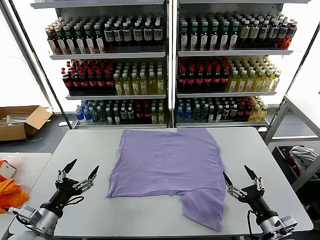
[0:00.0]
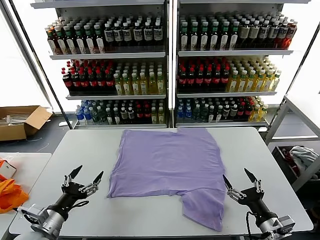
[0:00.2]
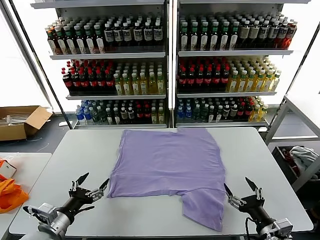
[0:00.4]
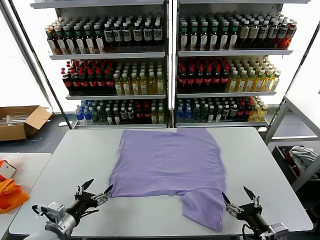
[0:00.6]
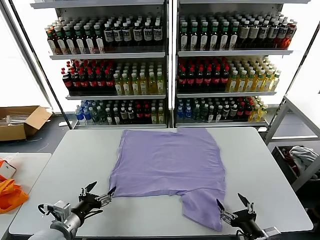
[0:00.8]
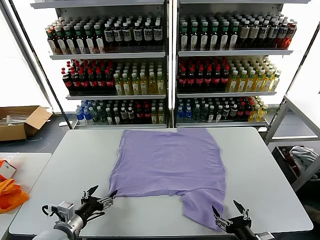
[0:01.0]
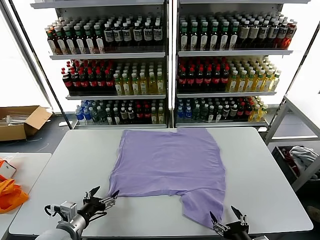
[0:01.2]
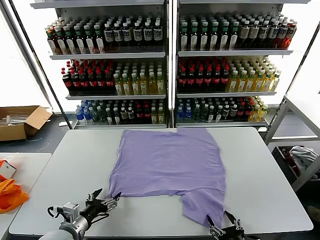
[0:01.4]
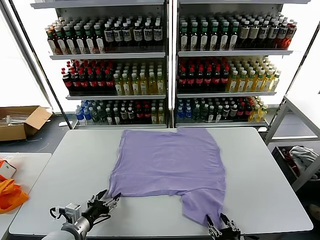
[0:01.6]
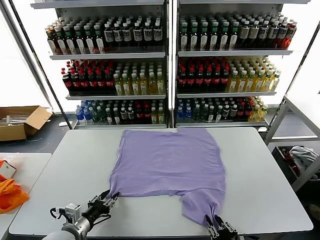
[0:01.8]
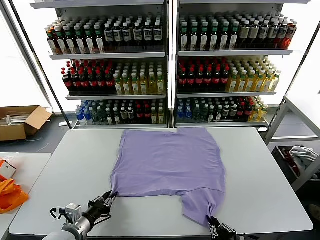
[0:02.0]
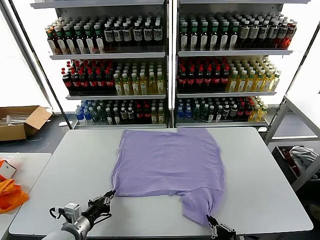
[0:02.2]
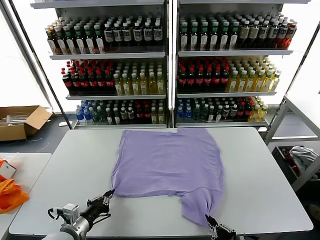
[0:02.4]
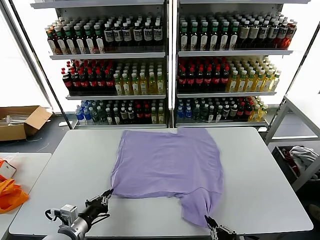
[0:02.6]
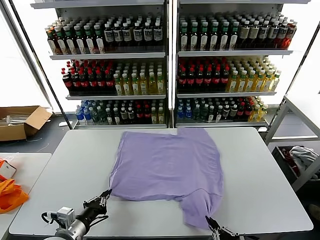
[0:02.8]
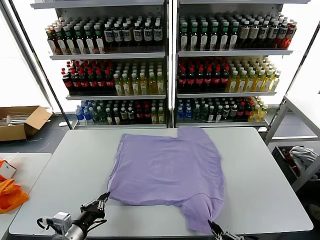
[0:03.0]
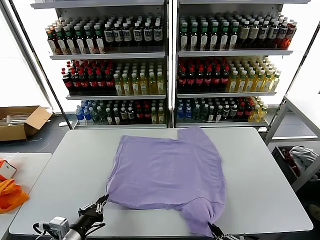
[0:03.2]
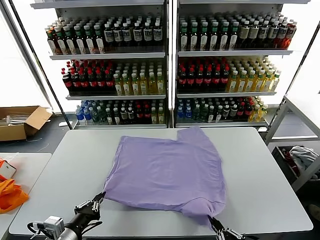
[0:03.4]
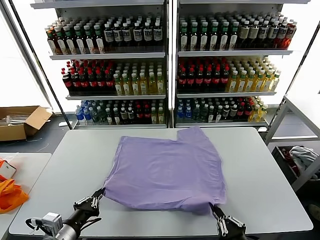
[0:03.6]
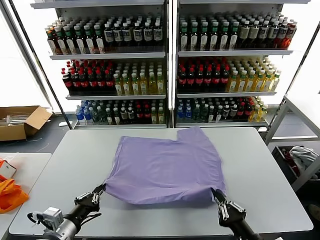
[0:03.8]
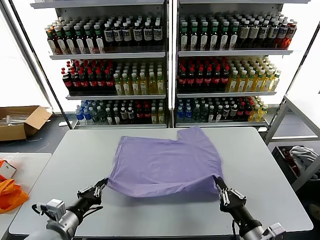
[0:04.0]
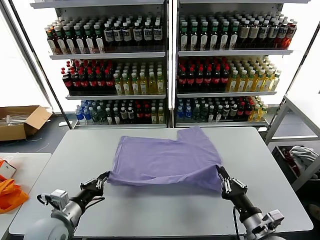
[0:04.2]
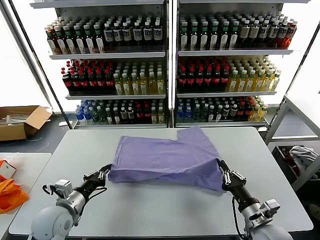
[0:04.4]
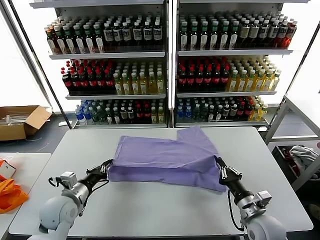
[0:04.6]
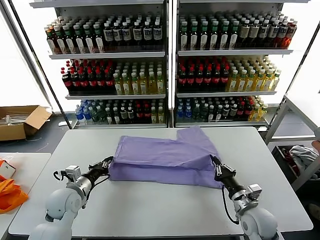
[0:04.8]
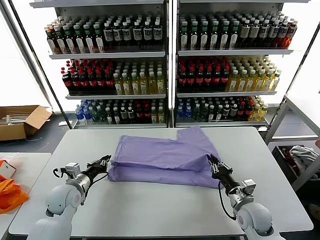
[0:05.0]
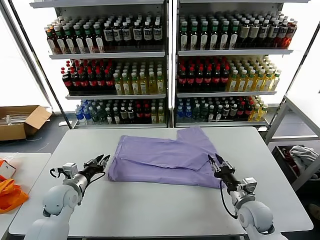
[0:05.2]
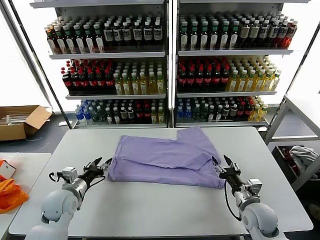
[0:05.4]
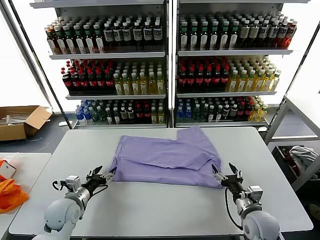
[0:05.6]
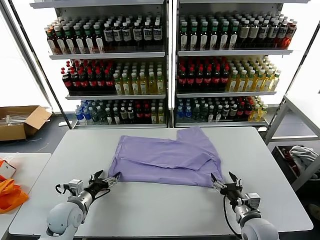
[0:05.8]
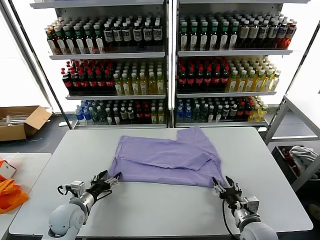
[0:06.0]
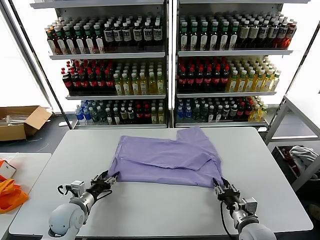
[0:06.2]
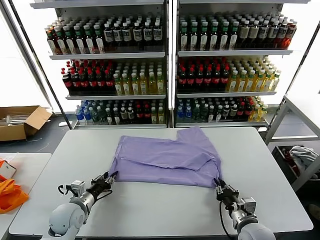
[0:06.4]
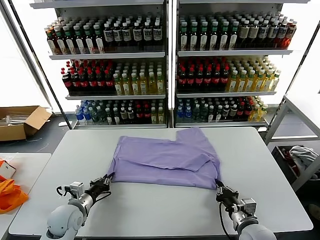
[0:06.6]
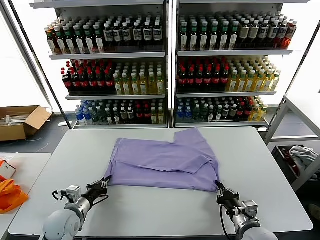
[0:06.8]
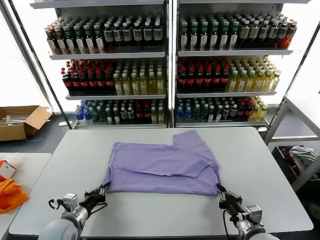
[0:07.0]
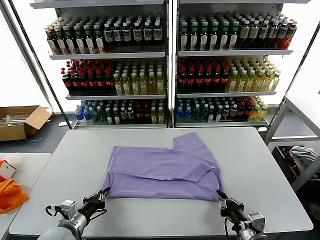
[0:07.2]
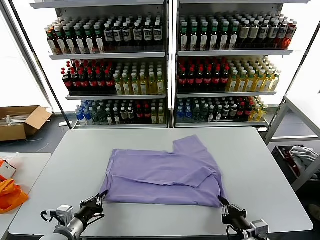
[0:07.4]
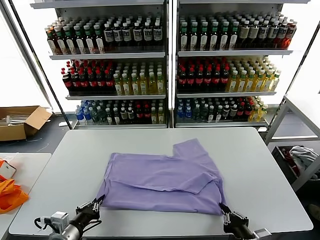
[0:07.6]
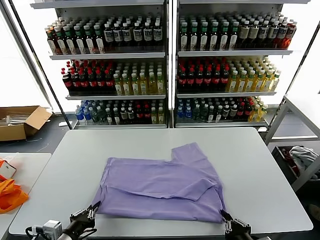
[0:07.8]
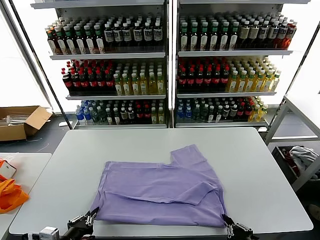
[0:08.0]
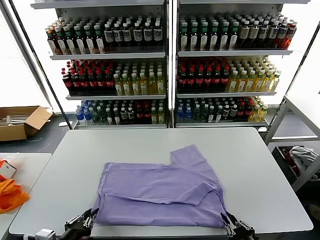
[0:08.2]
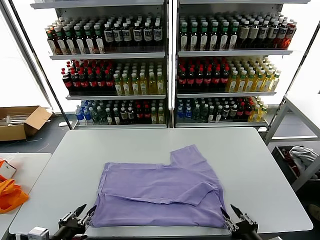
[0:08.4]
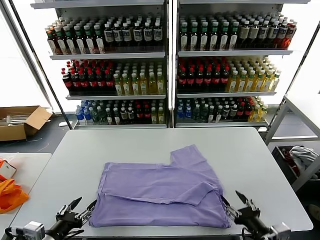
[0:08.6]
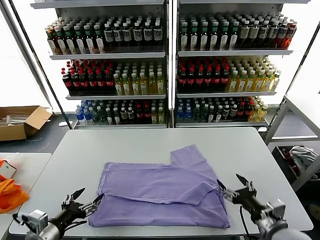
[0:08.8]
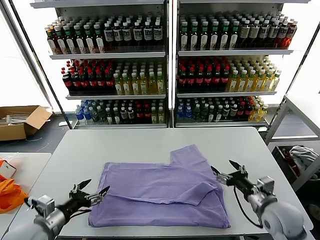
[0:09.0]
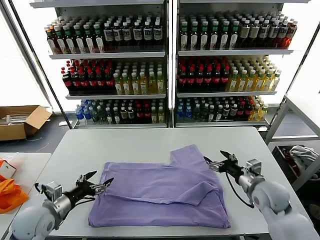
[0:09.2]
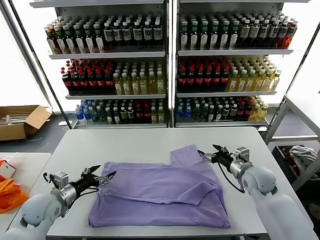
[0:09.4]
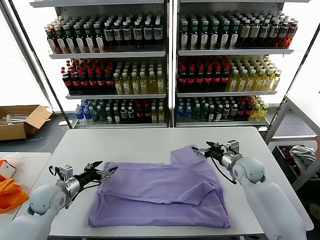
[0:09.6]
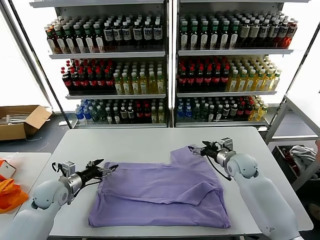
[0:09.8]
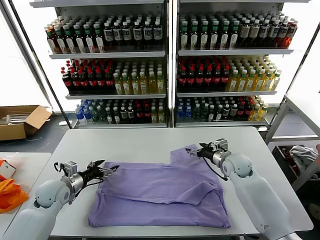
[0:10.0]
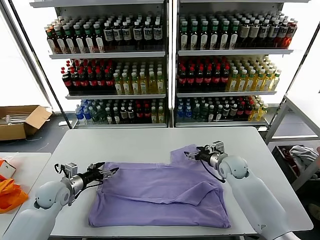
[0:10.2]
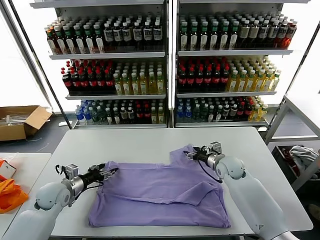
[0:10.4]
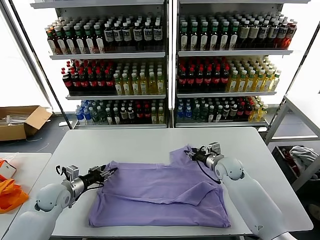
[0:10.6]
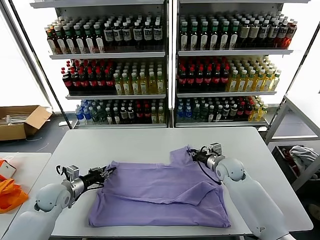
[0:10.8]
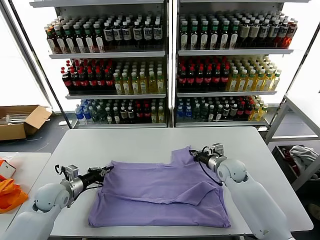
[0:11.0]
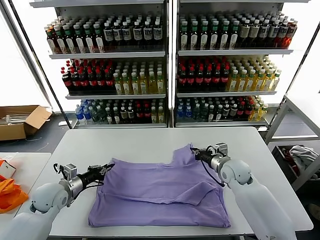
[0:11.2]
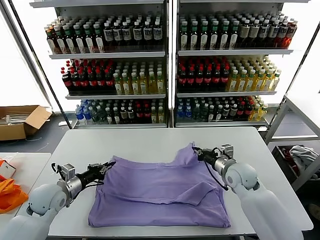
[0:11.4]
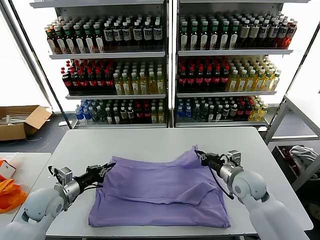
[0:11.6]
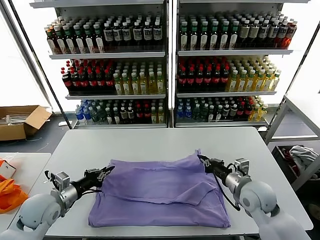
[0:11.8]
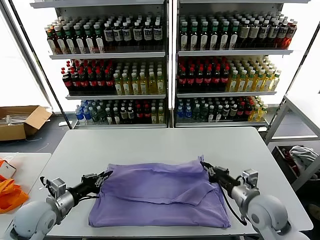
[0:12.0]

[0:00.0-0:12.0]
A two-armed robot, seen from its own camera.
Task of the whole recording: fold and organize the clothes.
Step, 0.0 to 2.6 s: use both grippers simultaneously to clamp the lower edge of the clothing fabric.
Step, 2.8 to 5.2 s: use both grippers to drag the lower edge of the fabric forward and fold it over the upper edge.
Step, 5.4 to 8.4 s: Drag the clothes downward with both gripper.
Step, 8.6 to 11.0 s: use both grippers simultaneously to clamp the upper edge of the clothing fabric.
1.6 to 3.0 s: The left gripper shifts by about 5 cm, and closes its fingers. The right gripper moves backward, some 5 cm, and closes.
3.0 to 4.4 s: The right gripper heads forward, covering some 20 cm. The left gripper moves forward, approximately 10 cm.
4.4 to 6.0 s: The left gripper heads downward, covering about 5 cm, and opens its fingers. The right gripper opens.
6.0 to 7.6 s: The two grippers go some 10 cm backward. The left gripper closes up. Meanwhile the right gripper closes.
7.6 to 9.0 s: The right gripper travels forward by approximately 20 cm, and opens up; the left gripper heads to the left, covering about 5 cm, moves about 5 cm backward and comes back, and opens.
9.0 to 10.4 s: The right gripper heads forward and to the left, covering about 20 cm, and closes; the left gripper is displaced forward by about 15 cm.
10.4 to 12.0 s: The right gripper shifts approximately 20 cm backward, and closes. Meanwhile the left gripper is displaced backward and upward by about 10 cm, and closes its fingers.

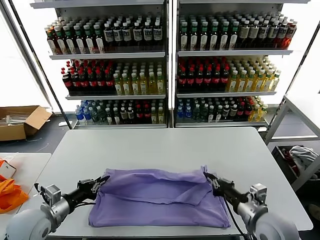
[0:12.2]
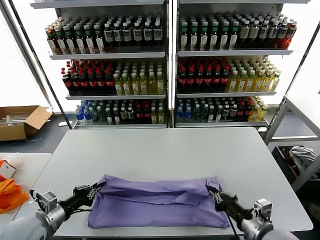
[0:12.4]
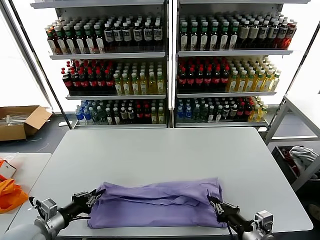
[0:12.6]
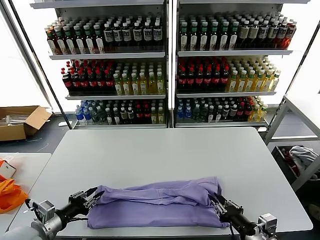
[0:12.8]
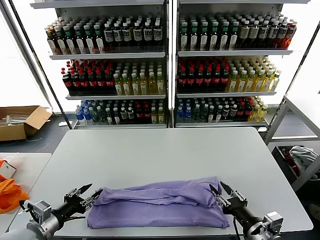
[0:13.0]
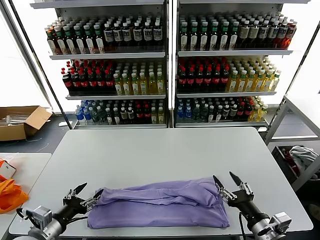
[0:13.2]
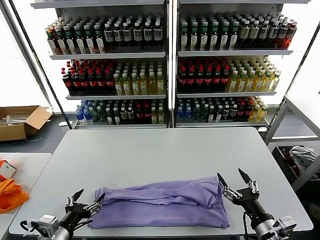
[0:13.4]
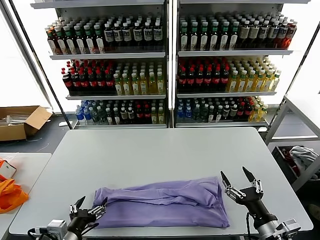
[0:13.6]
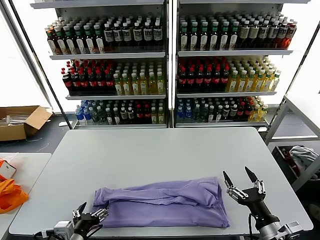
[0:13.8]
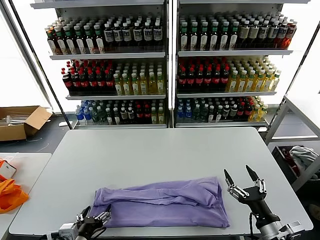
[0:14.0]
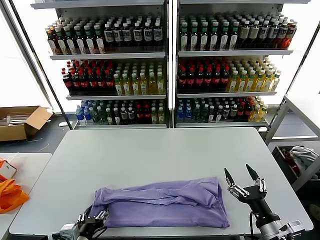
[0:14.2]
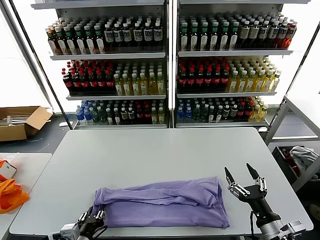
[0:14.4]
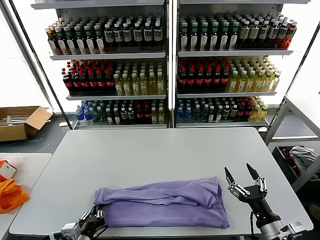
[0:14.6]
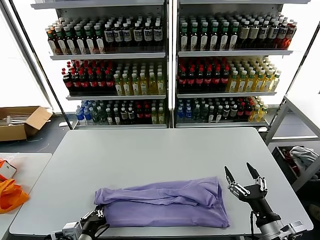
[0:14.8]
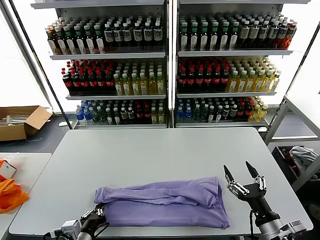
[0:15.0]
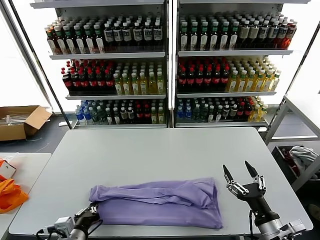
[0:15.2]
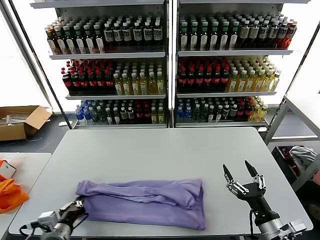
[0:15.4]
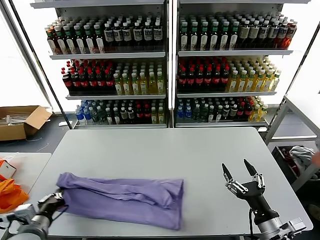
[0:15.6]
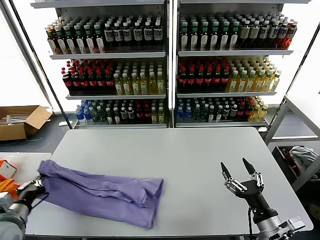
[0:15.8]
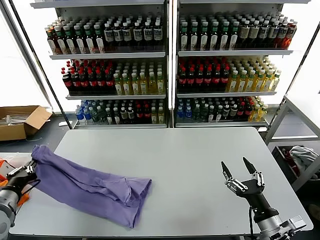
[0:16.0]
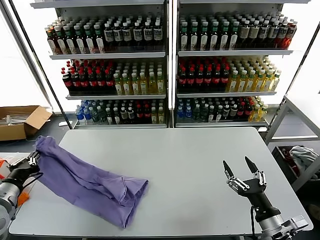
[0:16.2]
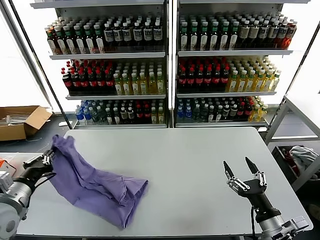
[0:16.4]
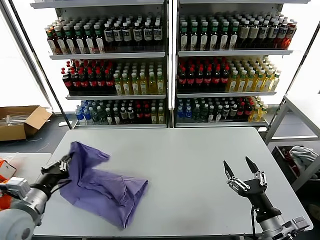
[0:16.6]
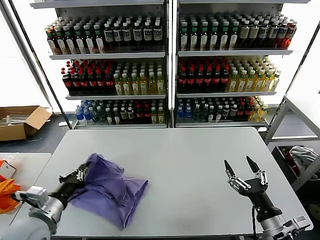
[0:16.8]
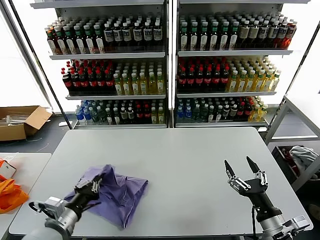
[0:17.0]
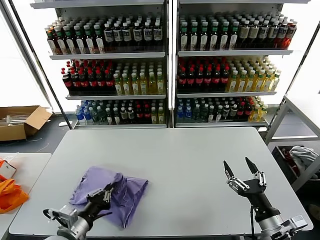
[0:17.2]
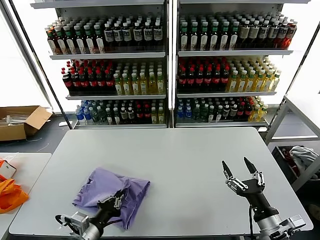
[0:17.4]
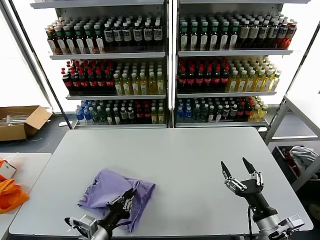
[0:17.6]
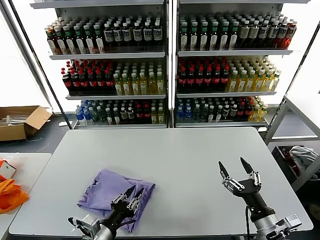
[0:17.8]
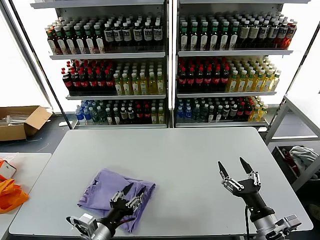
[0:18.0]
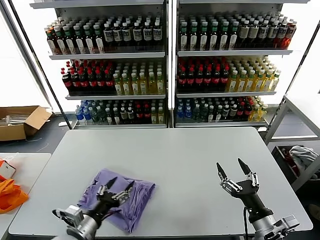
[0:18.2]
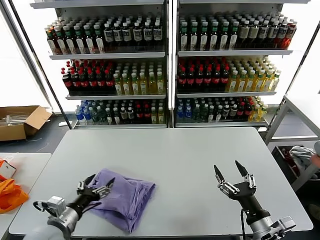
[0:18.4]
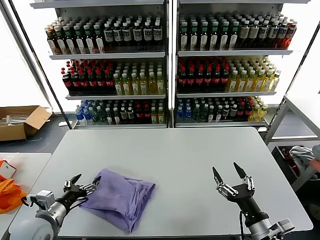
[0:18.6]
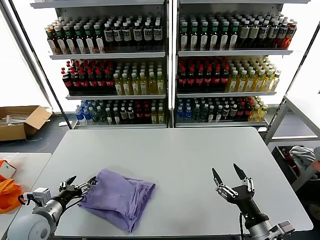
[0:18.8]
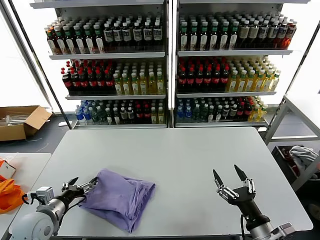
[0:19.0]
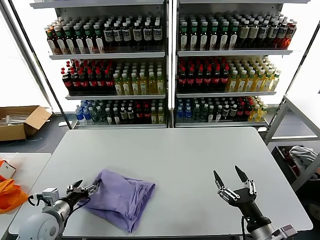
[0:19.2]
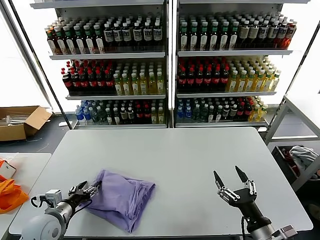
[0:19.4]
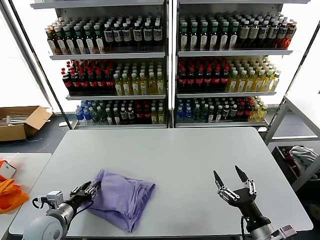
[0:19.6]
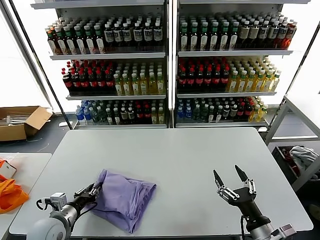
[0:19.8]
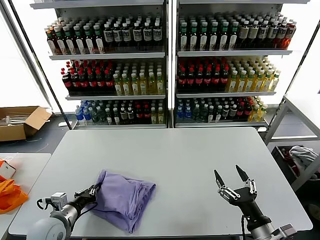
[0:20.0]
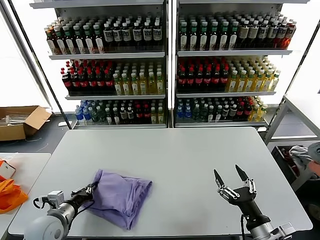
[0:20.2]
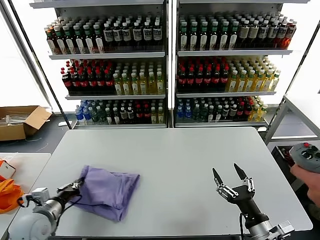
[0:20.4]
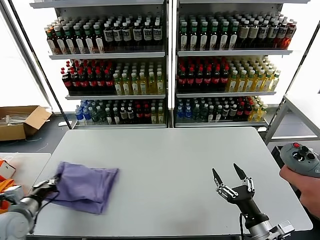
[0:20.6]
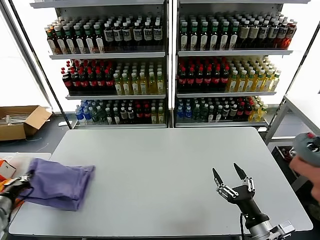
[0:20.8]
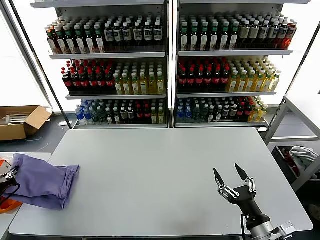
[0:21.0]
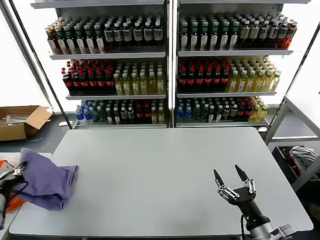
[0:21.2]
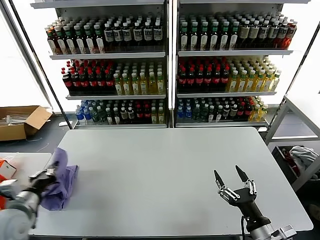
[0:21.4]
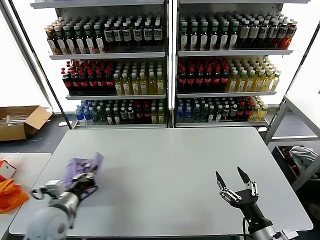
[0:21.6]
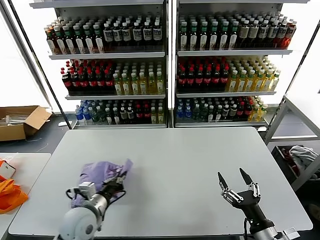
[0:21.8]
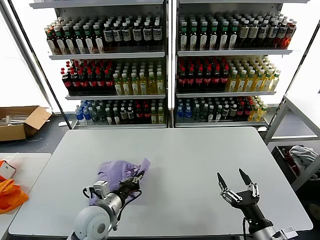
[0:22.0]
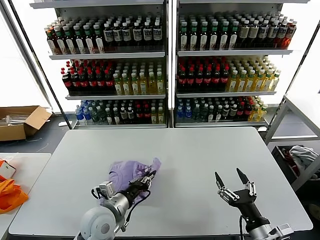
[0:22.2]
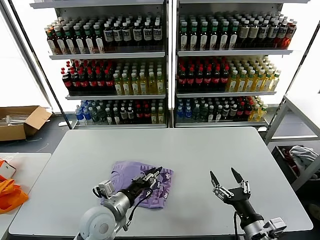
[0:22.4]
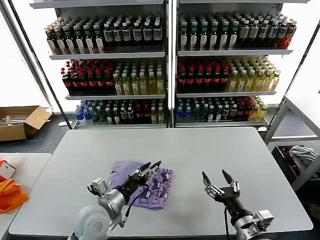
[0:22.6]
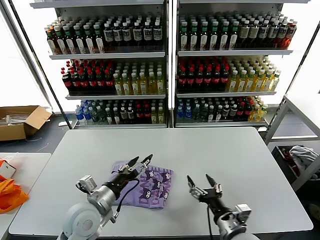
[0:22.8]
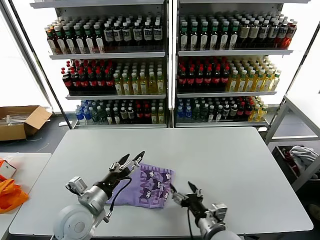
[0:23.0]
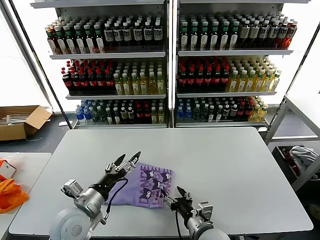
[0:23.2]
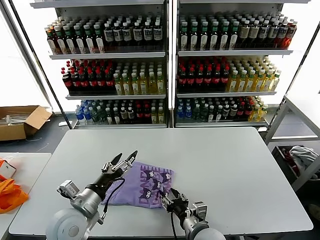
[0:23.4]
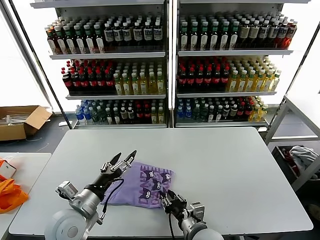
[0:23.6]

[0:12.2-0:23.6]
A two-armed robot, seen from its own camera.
Task of the whole recording: fold and organize the clothes.
Step, 13.0 to 15.0 s: use the left gripper to clamp the left edge of the fabric.
Step, 15.2 to 17.8 s: use the left gripper to drag the left edge of the fabric to the left and folds it over the right edge.
Step, 18.0 to 22.4 s: Flip the folded clothes over with left gripper.
12.2 to 13.6 s: The right gripper goes about 5 cm backward, and opens, while the left gripper is displaced backward and to the right by about 10 cm, and opens its fingers.
13.6 to 15.0 s: The left gripper changes place by about 5 cm, and closes its fingers.
15.0 to 16.4 s: The left gripper heads to the left, upward and forward, covering approximately 20 cm.
16.4 to 17.8 s: The left gripper moves to the right and downward, roughly 20 cm.
17.8 to 19.4 s: The left gripper shifts about 15 cm to the left and forward, and opens its fingers.
19.4 to 20.8 s: The left gripper is displaced to the left and upward by some 15 cm, and closes its fingers.
20.8 to 22.2 s: The left gripper travels to the right by roughly 30 cm.
22.2 to 23.6 s: The left gripper is displaced to the left by about 5 cm, and opens its fingers. Meanwhile the right gripper travels to the left and forward by roughly 20 cm, and closes up.
